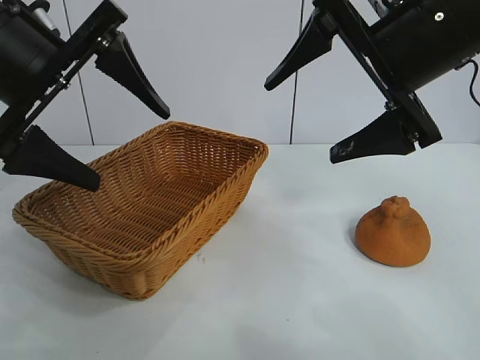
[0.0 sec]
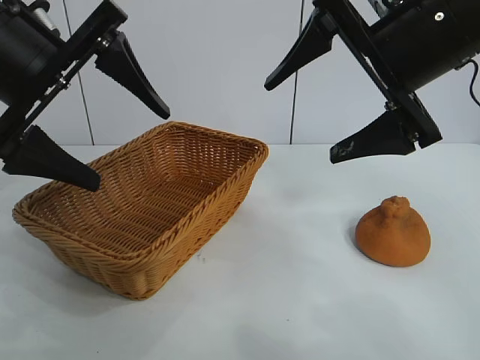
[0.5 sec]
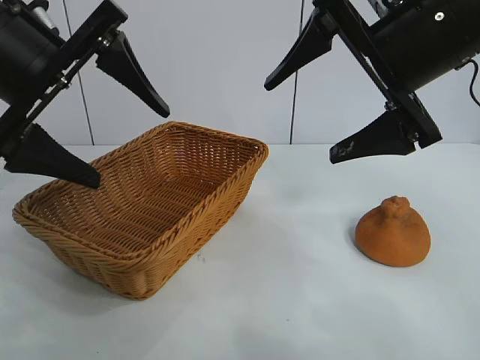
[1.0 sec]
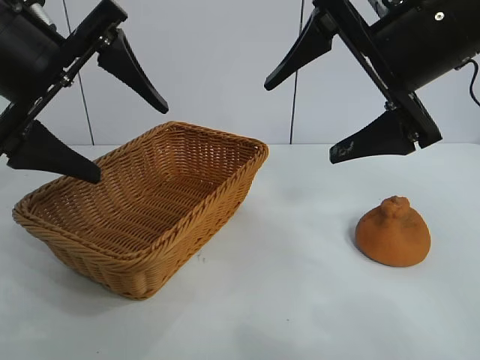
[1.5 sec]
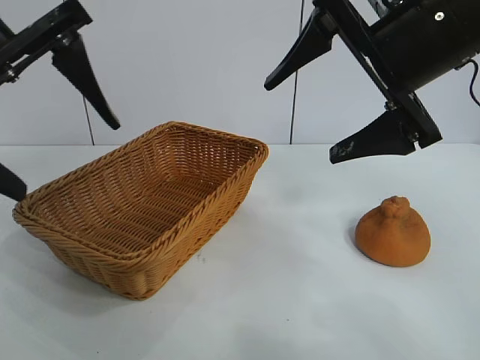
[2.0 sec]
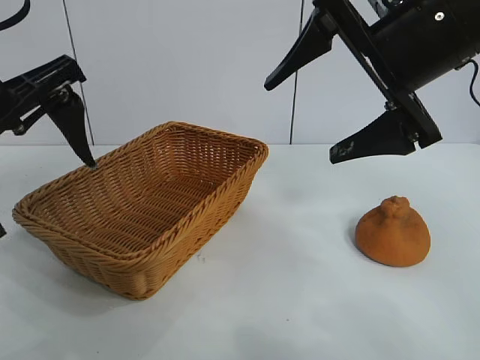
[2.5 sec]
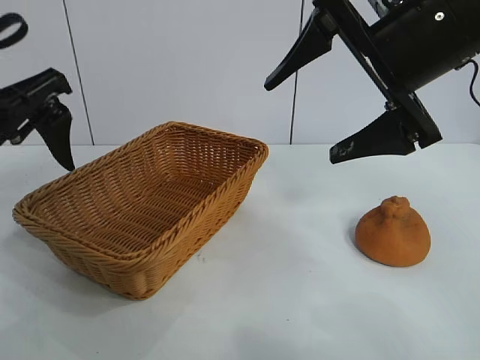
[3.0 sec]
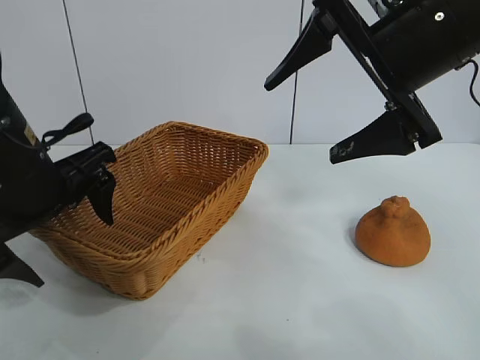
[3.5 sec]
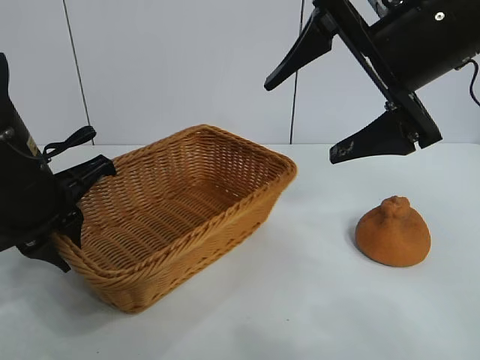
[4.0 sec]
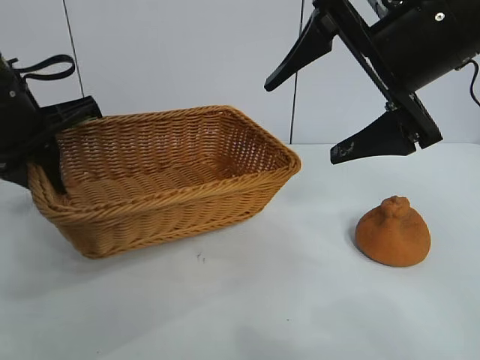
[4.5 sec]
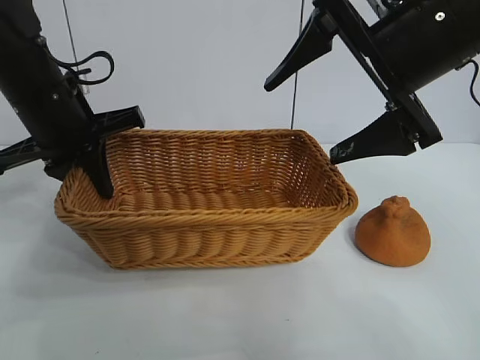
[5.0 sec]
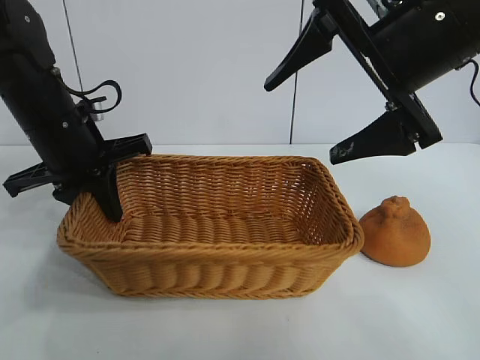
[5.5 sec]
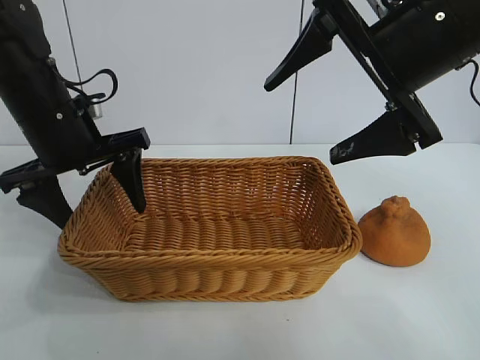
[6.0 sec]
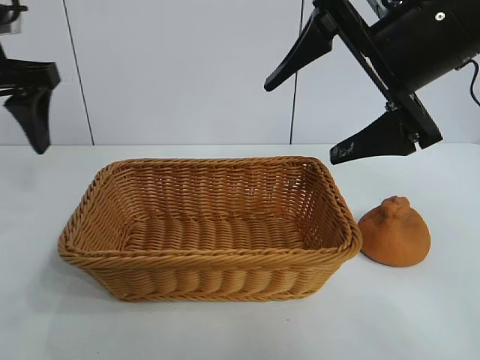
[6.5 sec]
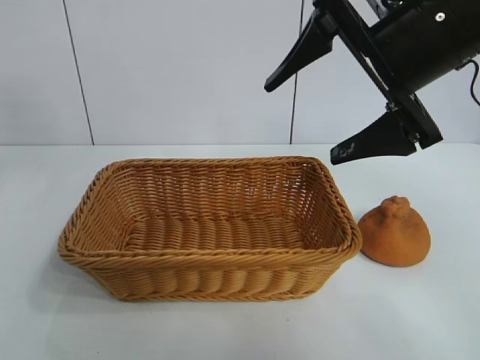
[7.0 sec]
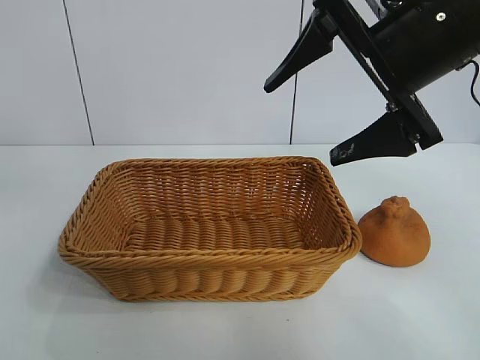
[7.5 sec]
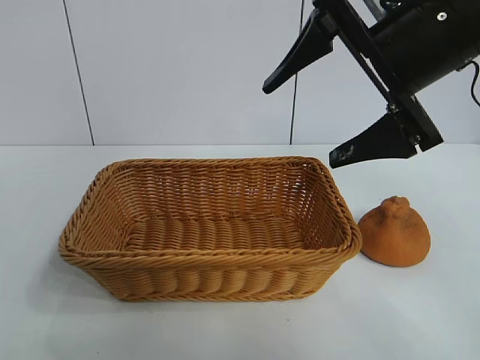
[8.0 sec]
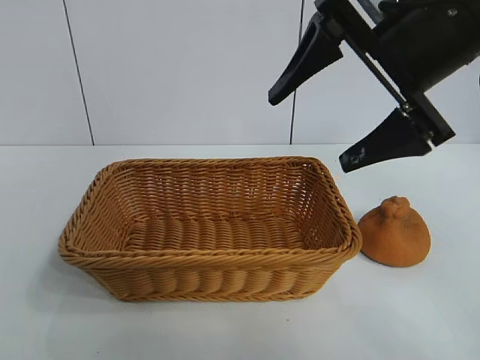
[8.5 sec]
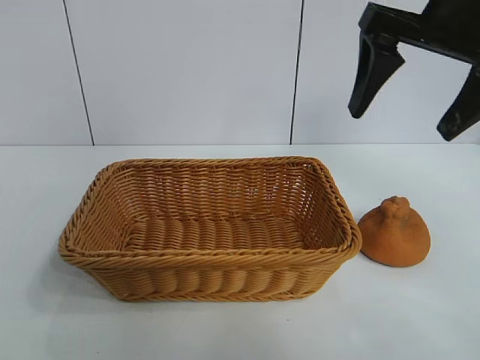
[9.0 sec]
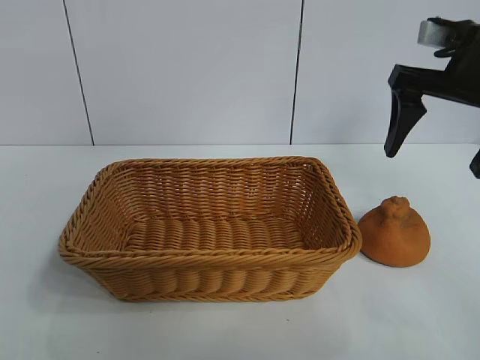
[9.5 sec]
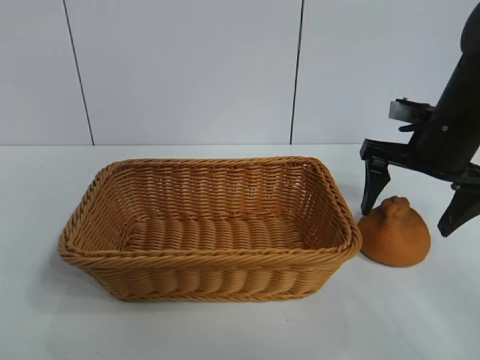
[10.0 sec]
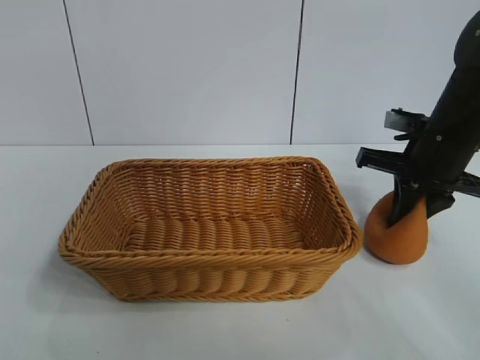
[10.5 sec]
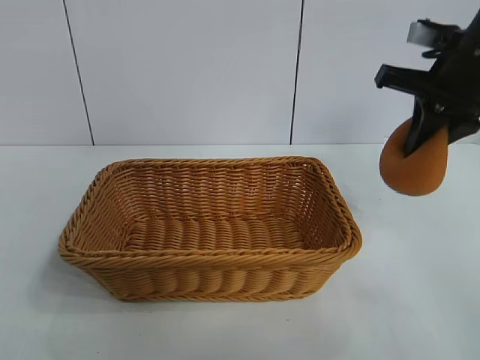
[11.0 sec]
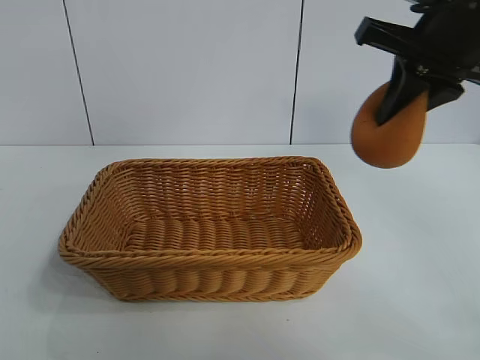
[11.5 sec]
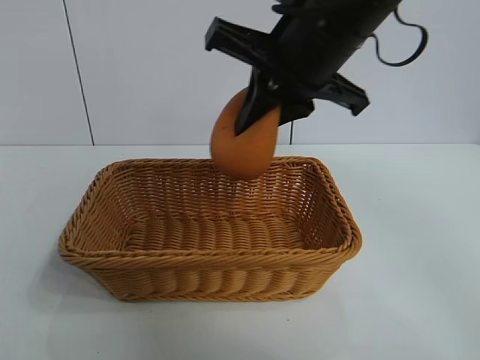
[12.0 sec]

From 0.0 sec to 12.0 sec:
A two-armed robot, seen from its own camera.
Task of the whole recording: pick up the orange and put it into the basket.
Step, from 1.0 sec to 4.0 sec: Grasp the basket with left gripper.
Step, from 4.5 sec to 6.0 sec: Place the basket in the center of view with left gripper.
Step, from 6.5 sec to 10.0 sec: Grasp the orange with right gripper.
